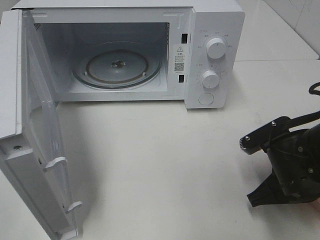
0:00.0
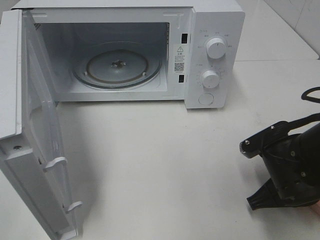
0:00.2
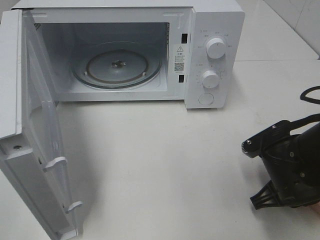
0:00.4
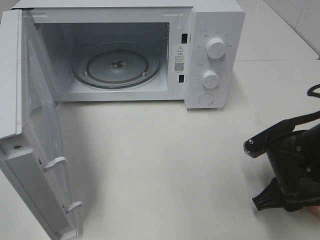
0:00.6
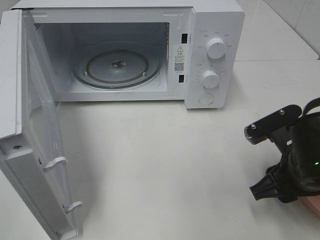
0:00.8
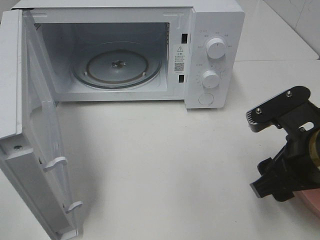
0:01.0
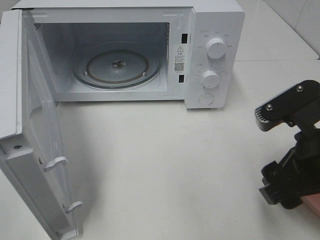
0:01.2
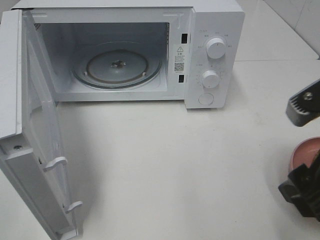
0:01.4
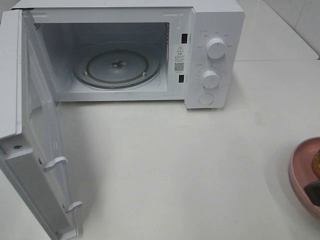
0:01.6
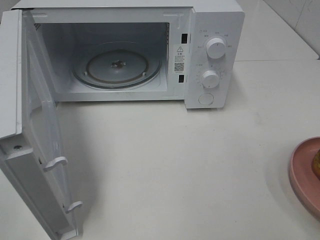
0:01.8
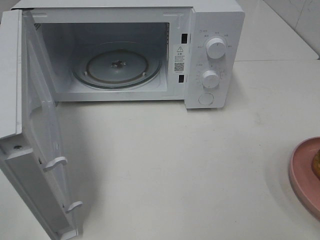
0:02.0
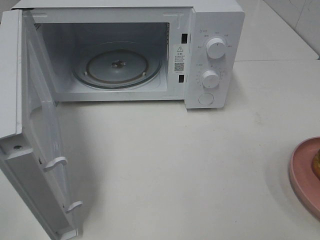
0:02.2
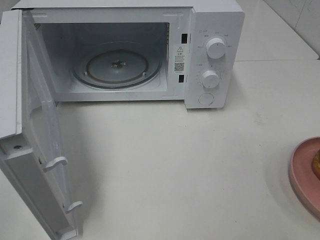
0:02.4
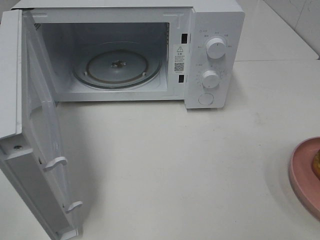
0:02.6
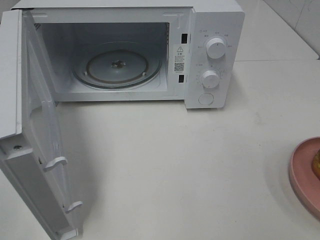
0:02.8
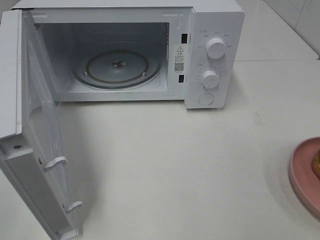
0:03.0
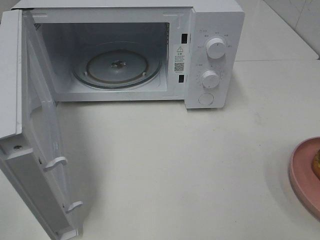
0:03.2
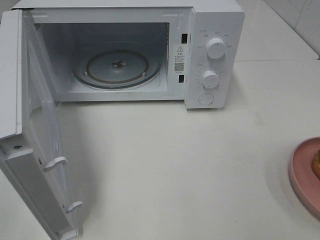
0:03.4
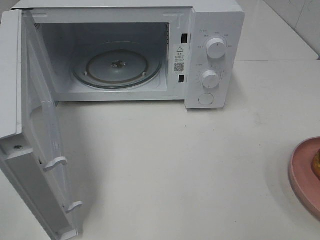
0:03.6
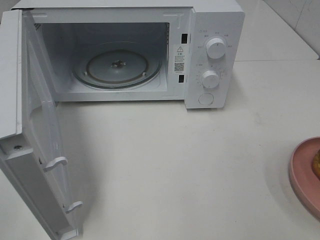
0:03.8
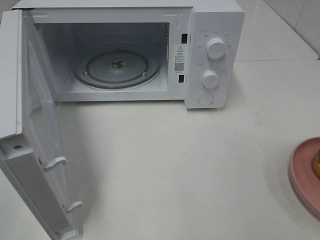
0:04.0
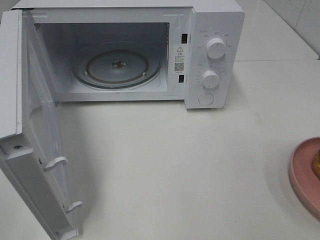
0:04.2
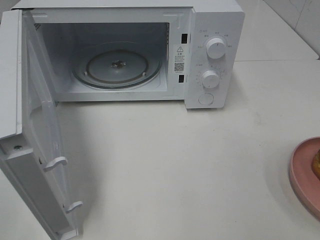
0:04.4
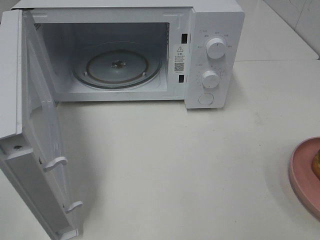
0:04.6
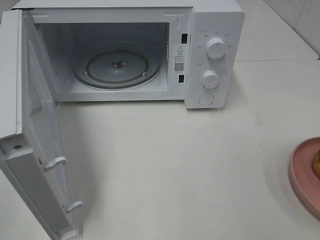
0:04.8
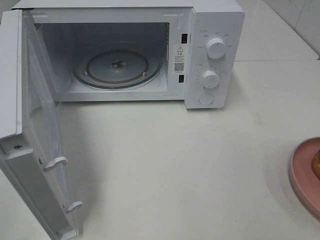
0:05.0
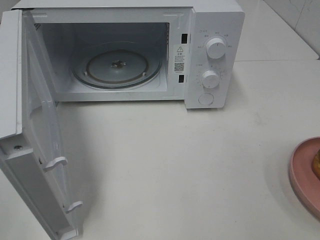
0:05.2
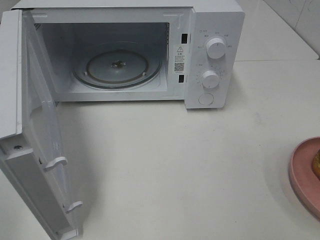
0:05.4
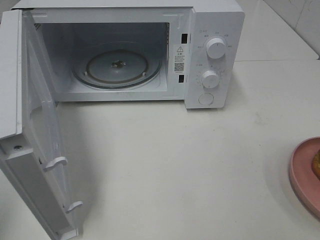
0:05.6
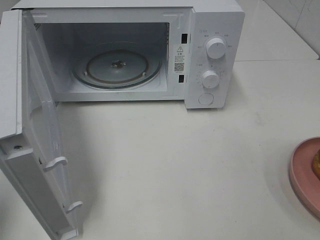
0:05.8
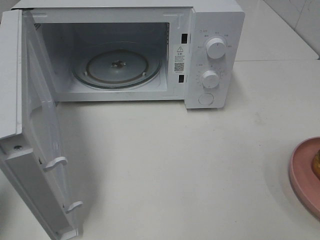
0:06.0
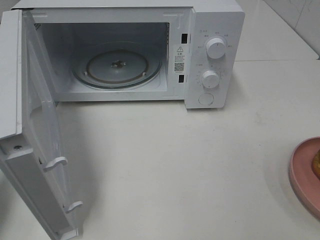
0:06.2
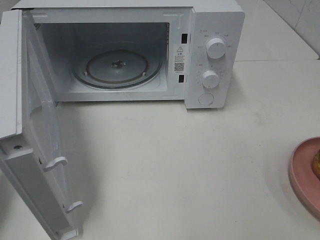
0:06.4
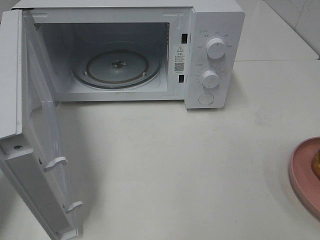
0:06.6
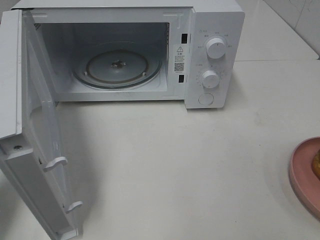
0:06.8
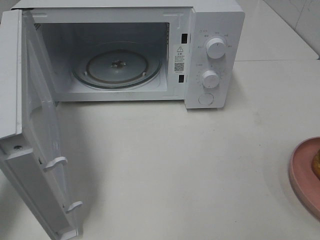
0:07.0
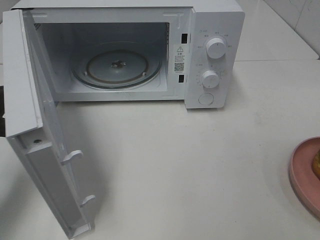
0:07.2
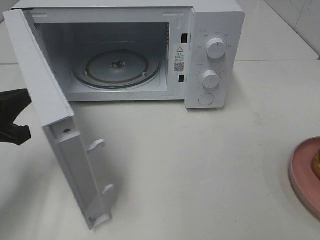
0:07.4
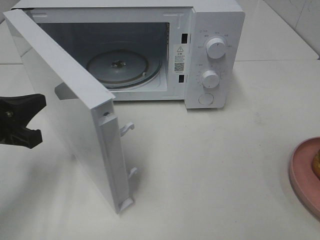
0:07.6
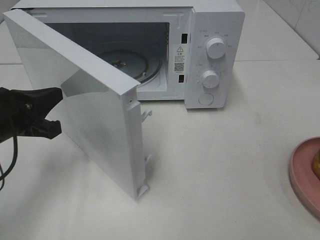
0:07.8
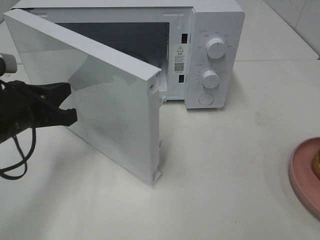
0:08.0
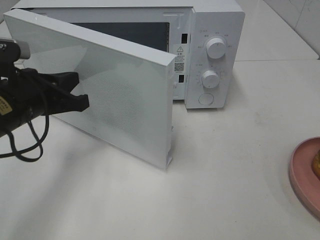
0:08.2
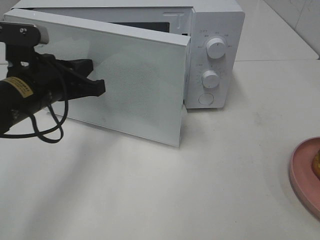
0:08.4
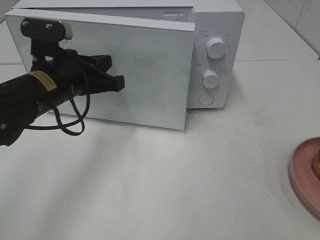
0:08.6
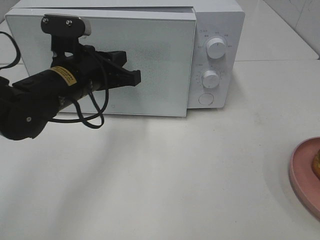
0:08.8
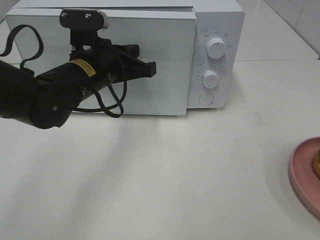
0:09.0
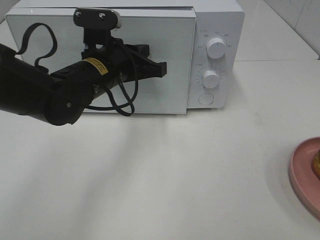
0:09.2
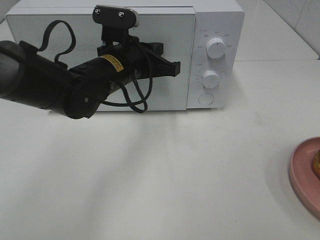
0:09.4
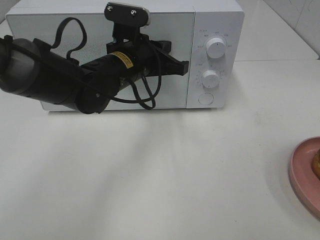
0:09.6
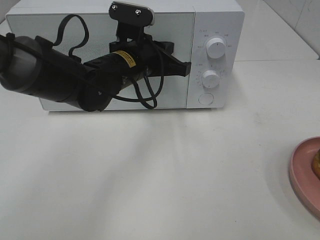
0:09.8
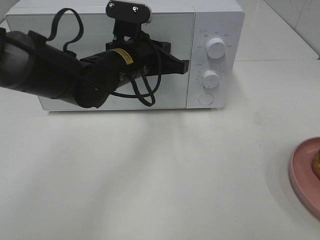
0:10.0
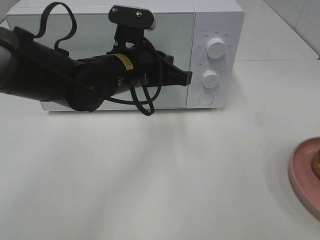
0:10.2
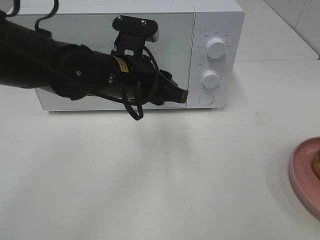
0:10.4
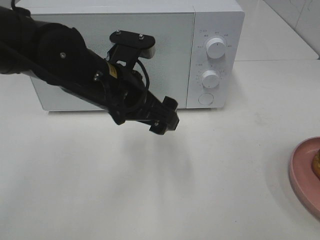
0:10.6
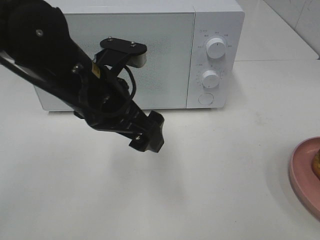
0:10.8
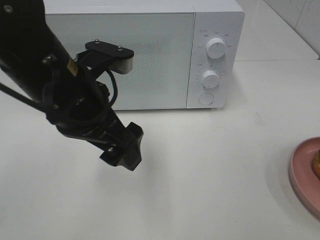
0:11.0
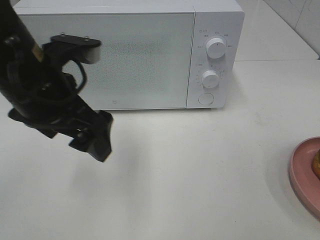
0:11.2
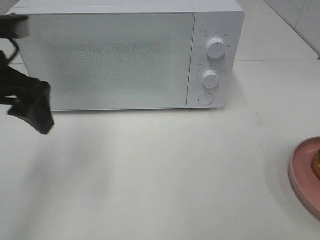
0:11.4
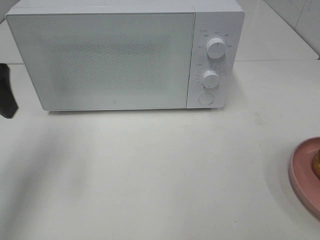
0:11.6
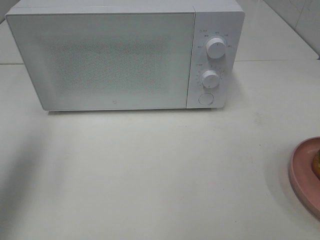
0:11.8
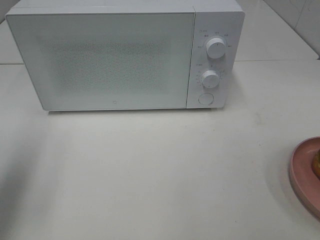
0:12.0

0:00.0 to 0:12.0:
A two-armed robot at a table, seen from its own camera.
Task of the whole recording: Heat the burger.
Step, 0:00.6 to 0:10.0: Left hand: close the microwave door.
0:00.0 to 0:01.6: The right gripper travels upward and backward by some 20 cm, and opens.
0:01.6 to 0:03.0: The right gripper goes approximately 15 cm backward and to the right.
0:03.0 to 0:04.4: Both grippers stay put.
0:04.4 to 0:06.0: The left gripper heads forward, covering approximately 15 cm, and closes its fingers.
0:06.0 to 0:07.6: The left gripper goes approximately 15 cm downward, forward and to the right.
0:07.6 to 0:09.0: The left gripper goes some 20 cm to the right and forward.
0:09.0 to 0:10.4: The left gripper changes place by some 5 cm, and opens.
0:10.4 to 0:12.0: The left gripper shifts approximately 25 cm to the left, and opens its fingers.

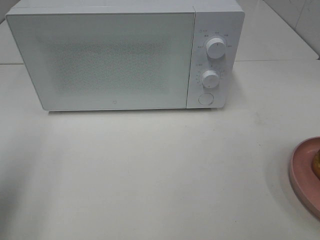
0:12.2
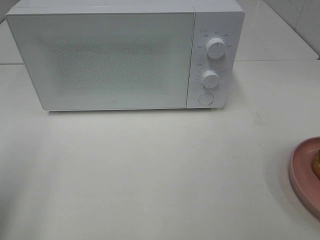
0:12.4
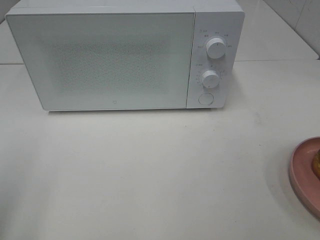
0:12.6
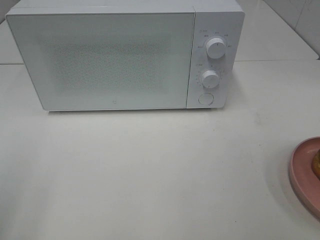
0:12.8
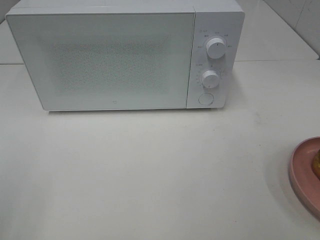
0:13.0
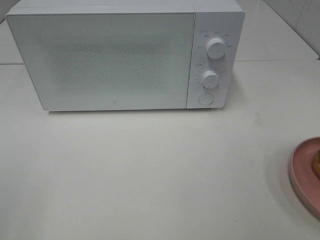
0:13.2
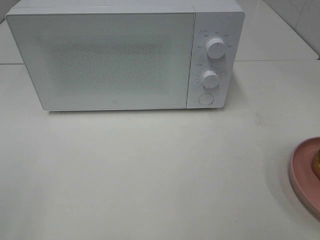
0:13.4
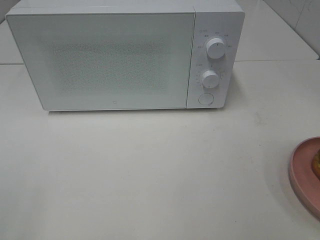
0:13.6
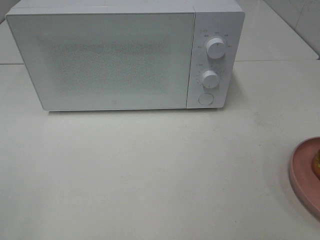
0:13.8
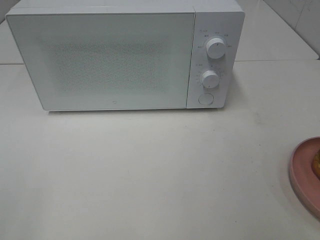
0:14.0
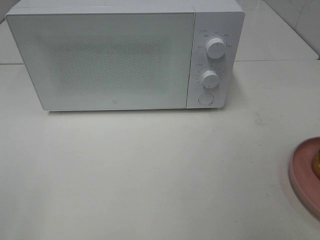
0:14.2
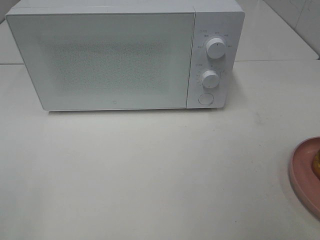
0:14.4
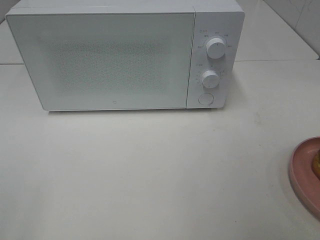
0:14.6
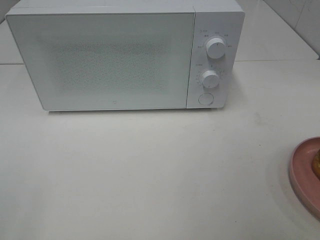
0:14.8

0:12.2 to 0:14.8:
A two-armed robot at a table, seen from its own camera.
Task of the whole recording: Heat the burger.
0:12.2 to 0:13.4: The left gripper goes some 15 cm backward.
0:13.4 to 0:14.8: Neither gripper changes place.

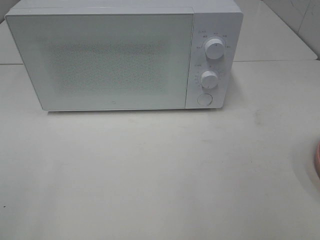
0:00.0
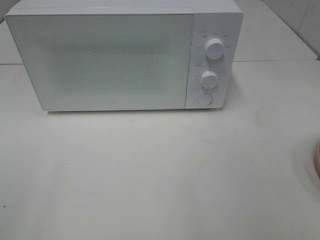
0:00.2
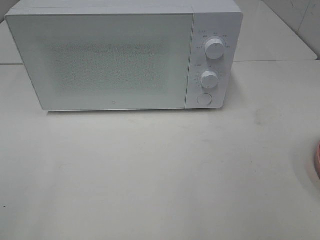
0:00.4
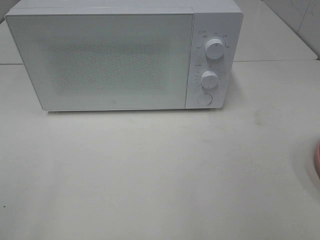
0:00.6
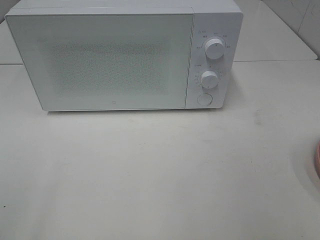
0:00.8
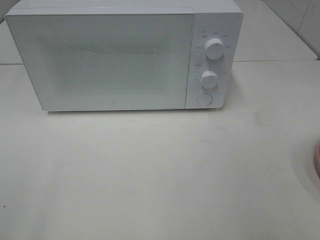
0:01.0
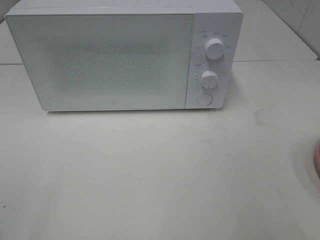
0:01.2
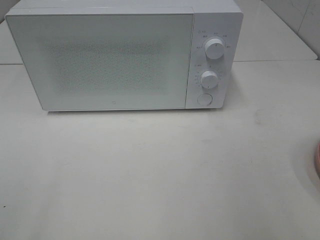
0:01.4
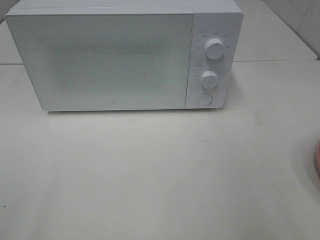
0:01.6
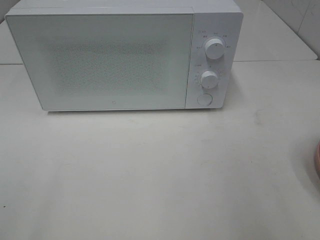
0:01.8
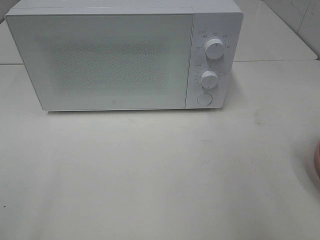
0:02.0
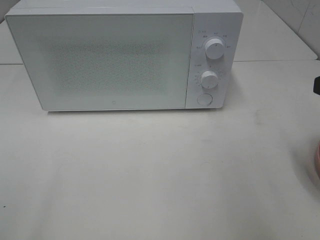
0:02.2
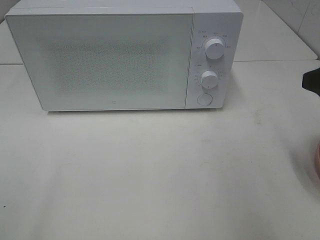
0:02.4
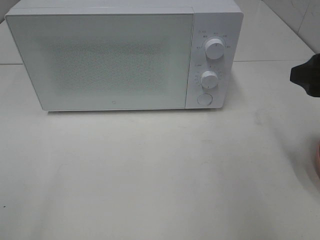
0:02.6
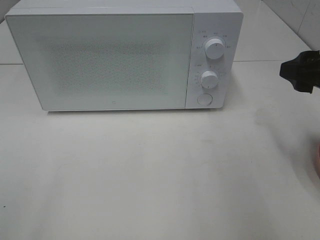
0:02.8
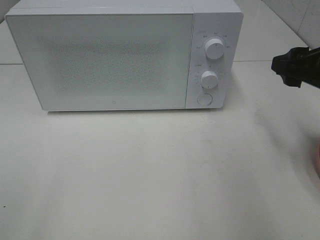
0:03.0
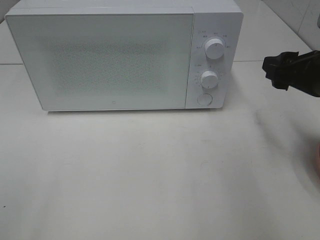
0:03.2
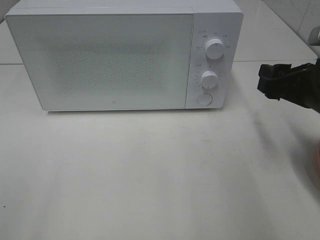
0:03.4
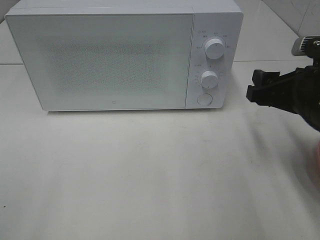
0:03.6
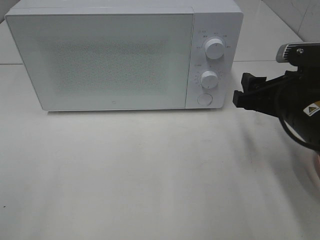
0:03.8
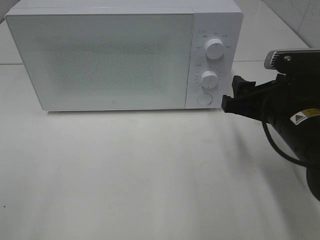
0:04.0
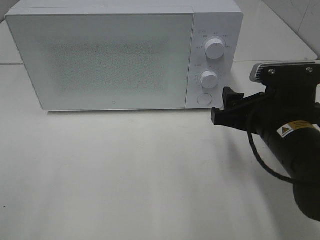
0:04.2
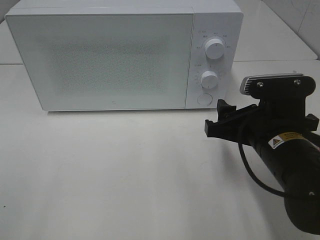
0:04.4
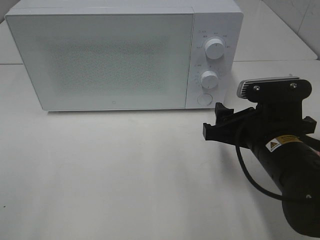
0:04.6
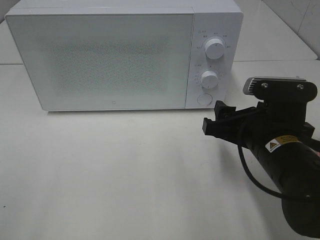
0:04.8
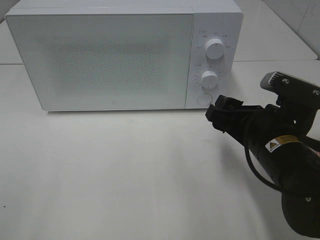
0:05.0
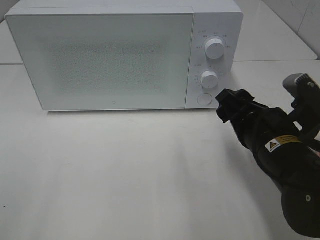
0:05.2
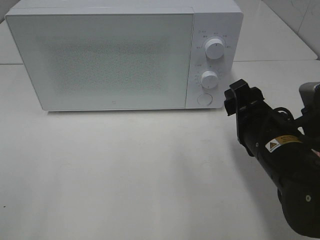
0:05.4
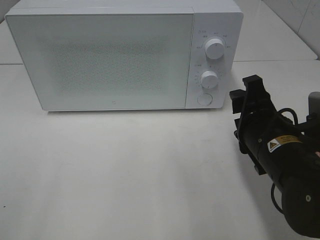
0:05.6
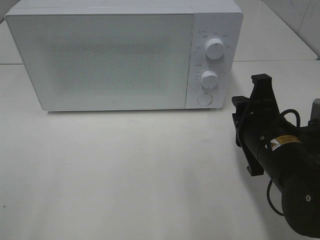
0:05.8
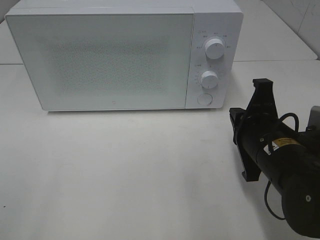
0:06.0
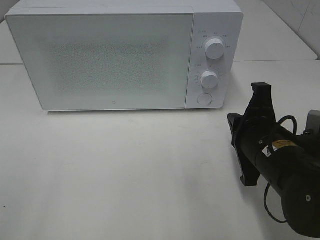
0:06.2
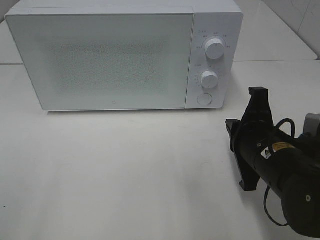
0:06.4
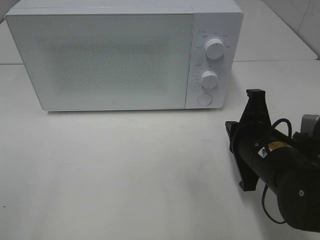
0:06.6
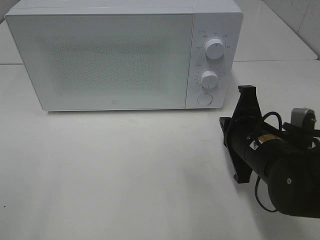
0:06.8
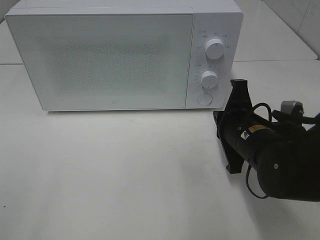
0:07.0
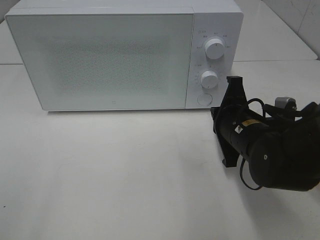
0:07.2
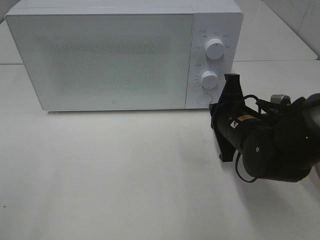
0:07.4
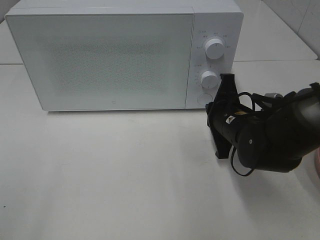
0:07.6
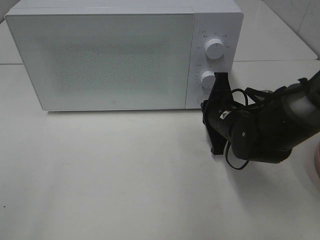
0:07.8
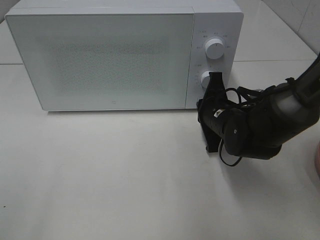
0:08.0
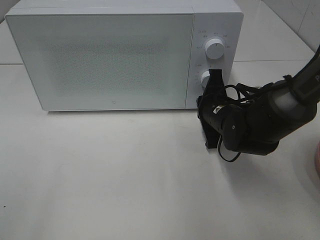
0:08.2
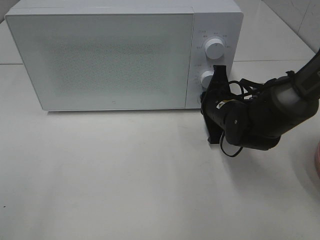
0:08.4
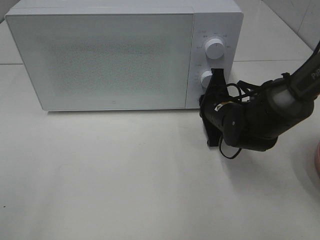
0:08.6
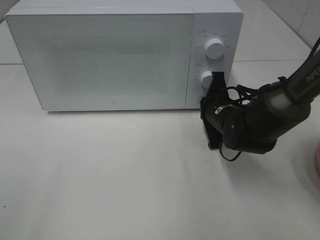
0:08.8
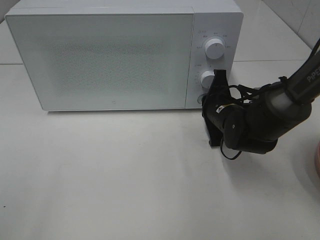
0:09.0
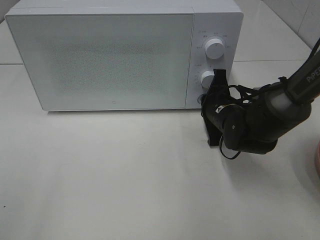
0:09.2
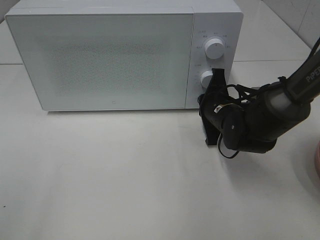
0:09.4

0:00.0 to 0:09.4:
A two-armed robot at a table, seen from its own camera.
Task of the whole recording: Heat the burger.
0:01.6 to 0:03.2: The right gripper travels forward and downward by some 15 cm.
0:03.2 to 0:04.8: The right gripper moves to the left and downward, about 10 cm.
0:04.8 to 0:06.2: The right gripper closes its fingers.
0:06.2 to 0:07.8: The right gripper travels forward by roughly 10 cm.
0:07.8 to 0:09.4: The grippers stay close to where they were, moving slightly.
